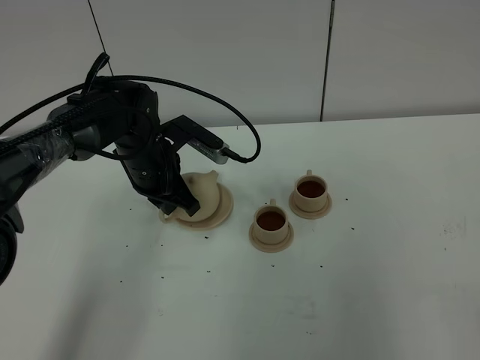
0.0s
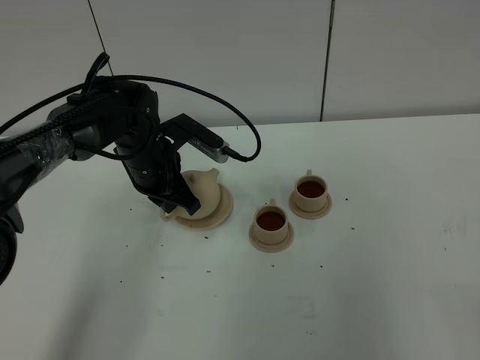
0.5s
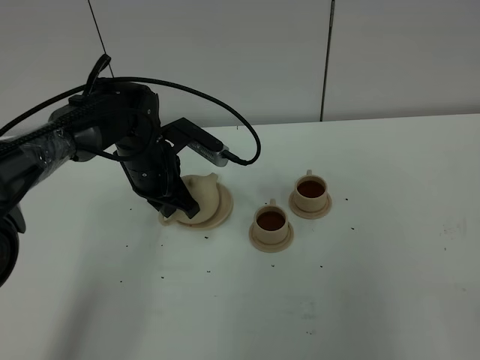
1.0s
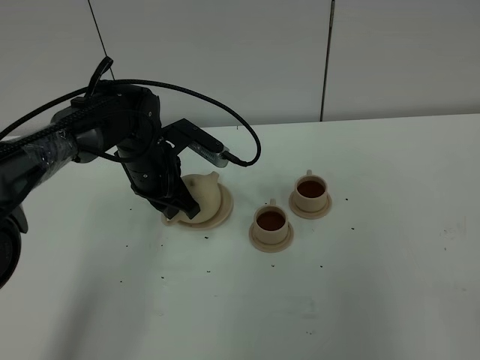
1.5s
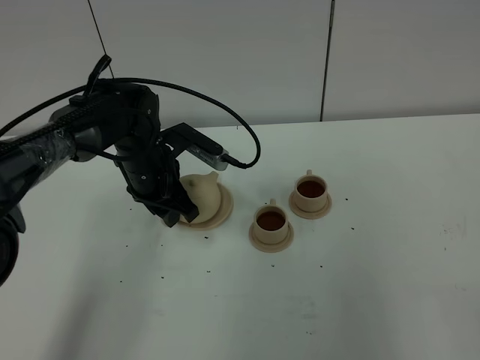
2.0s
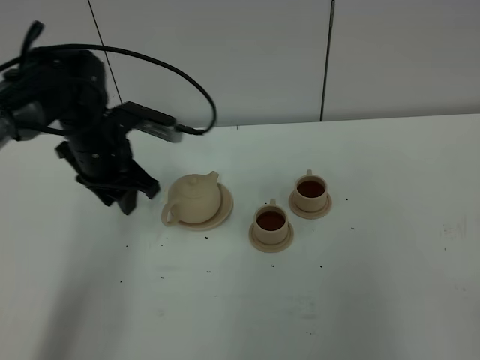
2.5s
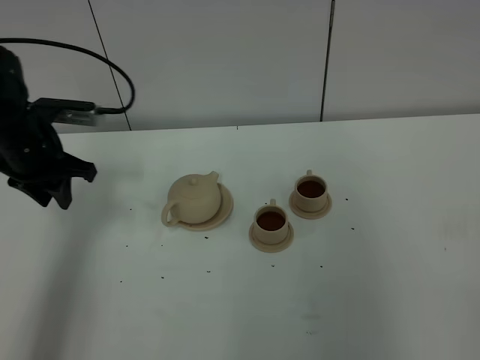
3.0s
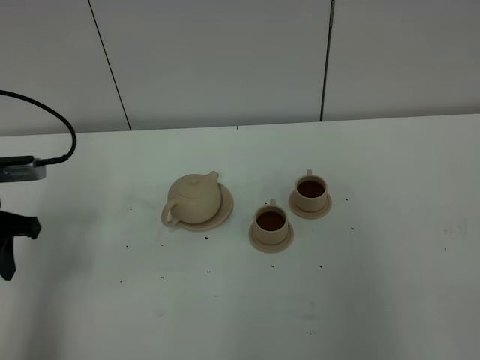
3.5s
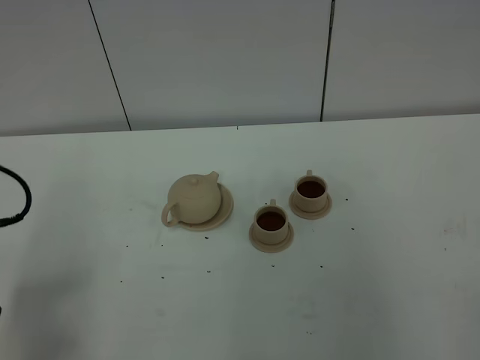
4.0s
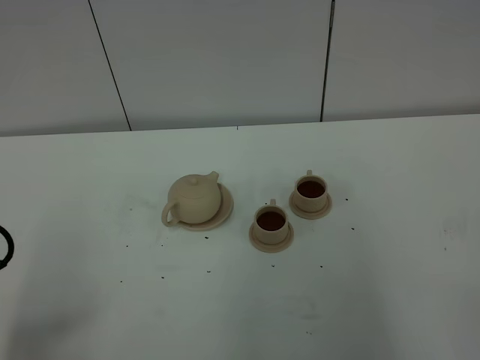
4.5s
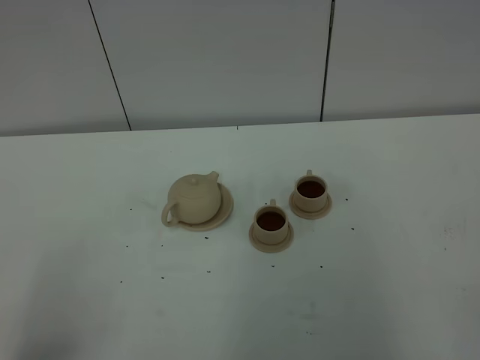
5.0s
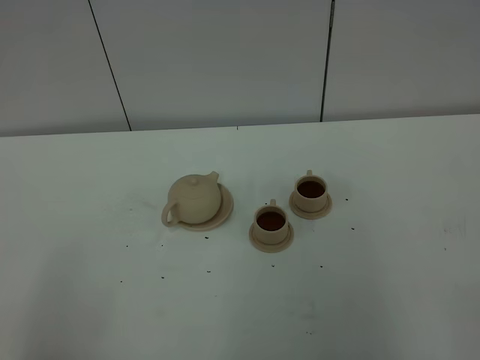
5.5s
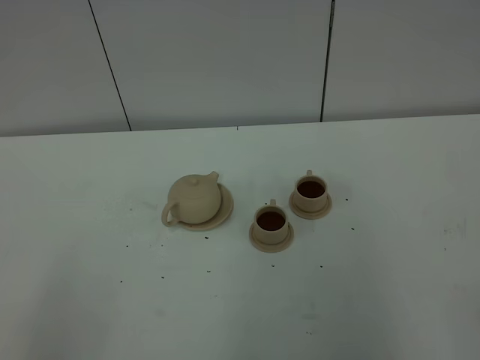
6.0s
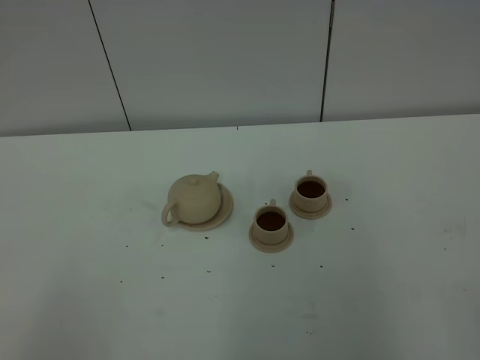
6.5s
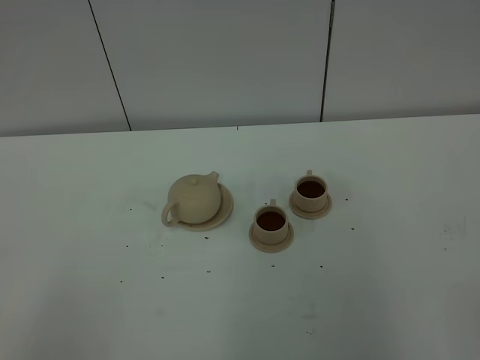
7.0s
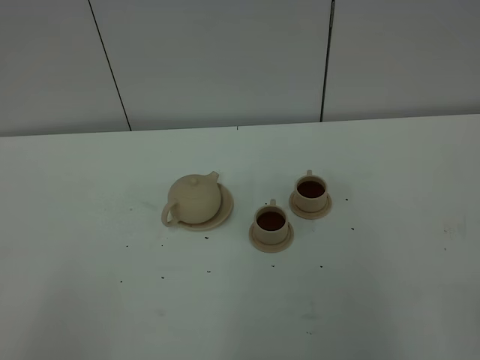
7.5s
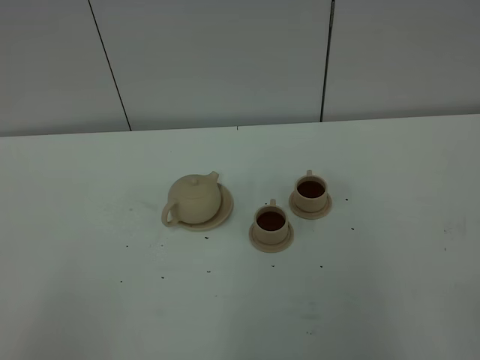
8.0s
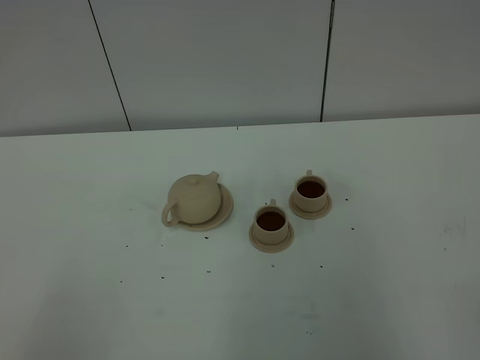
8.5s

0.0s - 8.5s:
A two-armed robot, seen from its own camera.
Task of the whole recording: grasp the brown teapot and pour the tea into the two brown teacups one by one, put the brown teapot back in its original place.
0.0s - 2.0s: The left gripper opens its fingers.
2.0s - 4.0s: The left gripper heads backward and to the left, covering approximately 30 cm.
4.0s - 6.5s: The left gripper shifts roughly 20 cm backward.
6.5s - 8.5s: Both grippers stay about where they are.
